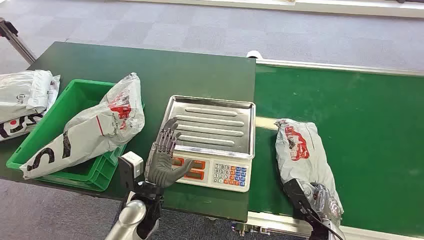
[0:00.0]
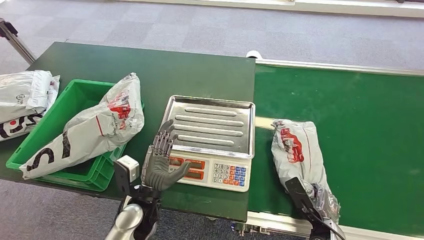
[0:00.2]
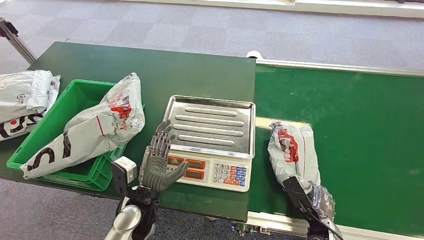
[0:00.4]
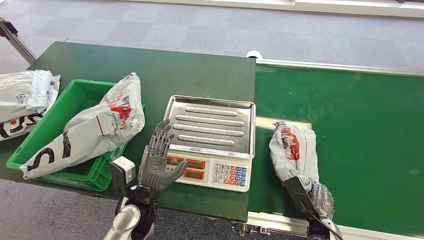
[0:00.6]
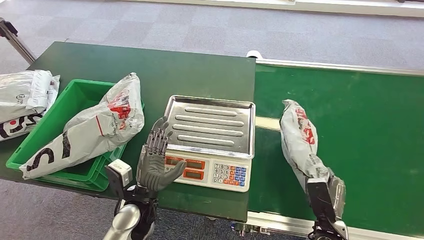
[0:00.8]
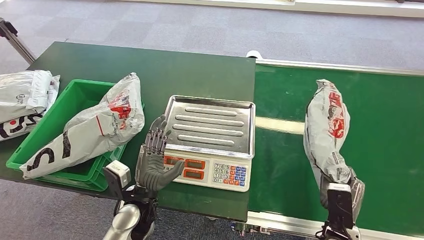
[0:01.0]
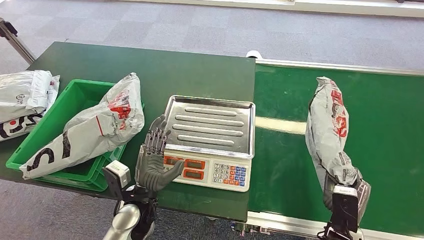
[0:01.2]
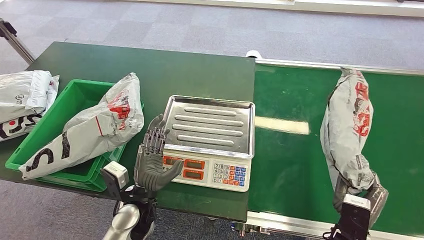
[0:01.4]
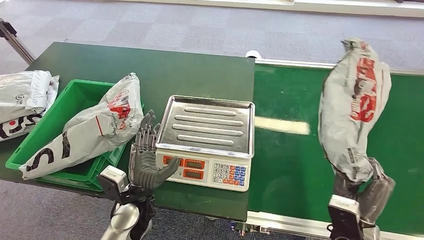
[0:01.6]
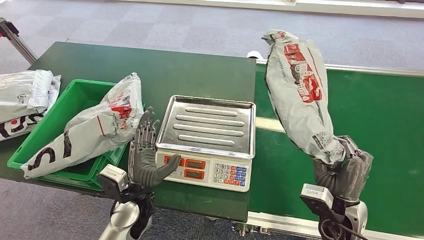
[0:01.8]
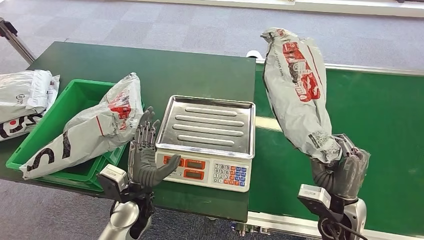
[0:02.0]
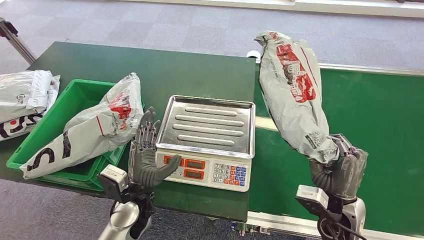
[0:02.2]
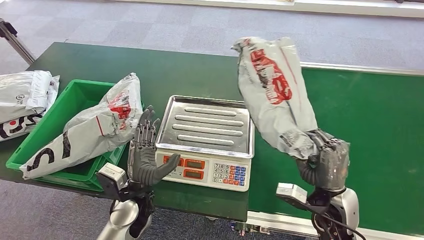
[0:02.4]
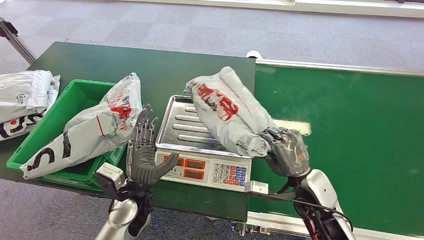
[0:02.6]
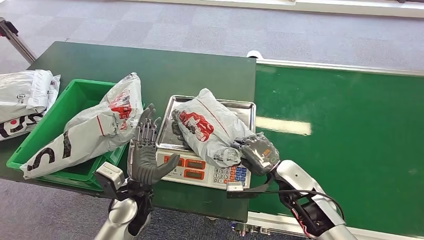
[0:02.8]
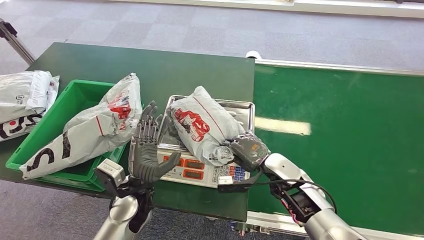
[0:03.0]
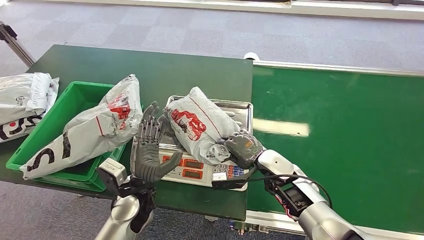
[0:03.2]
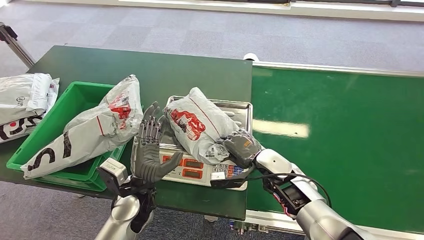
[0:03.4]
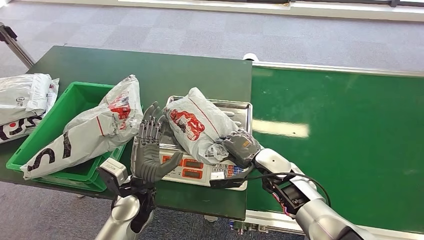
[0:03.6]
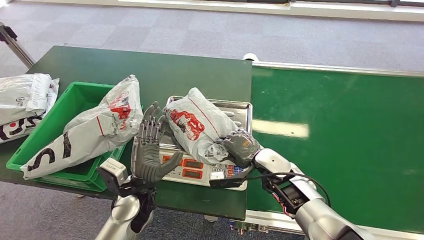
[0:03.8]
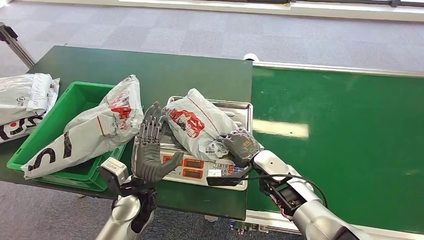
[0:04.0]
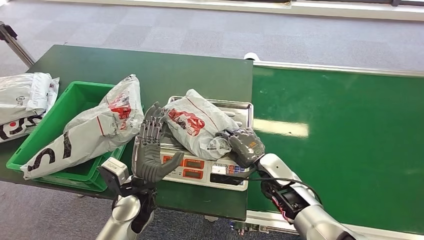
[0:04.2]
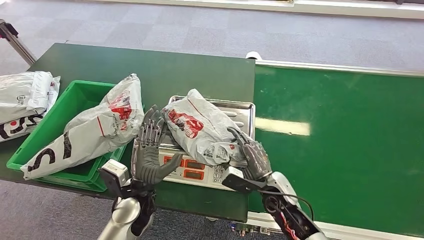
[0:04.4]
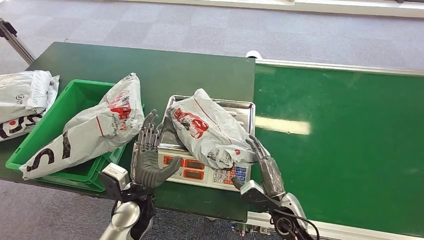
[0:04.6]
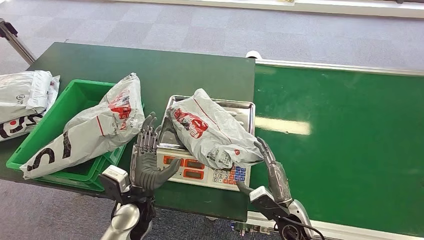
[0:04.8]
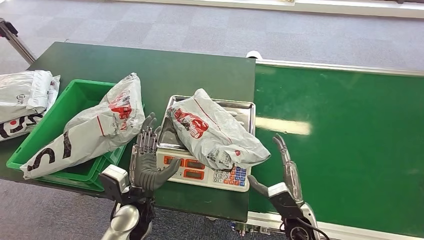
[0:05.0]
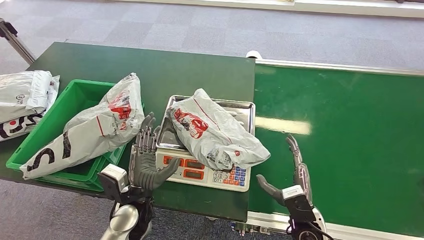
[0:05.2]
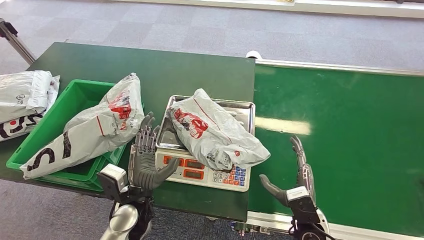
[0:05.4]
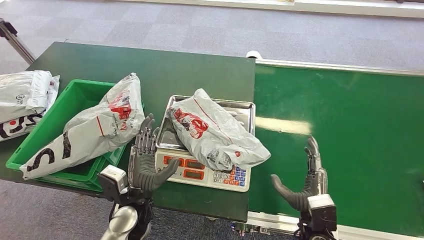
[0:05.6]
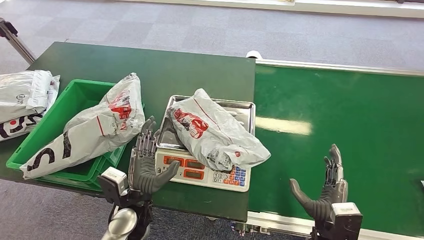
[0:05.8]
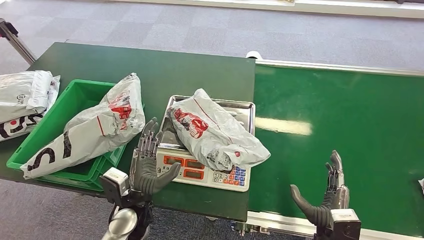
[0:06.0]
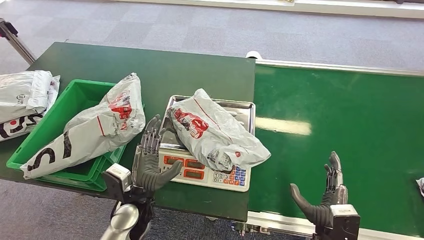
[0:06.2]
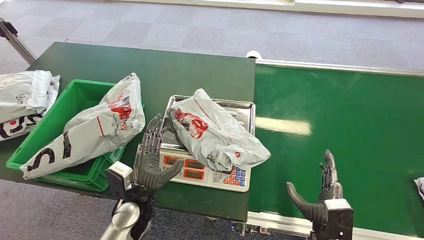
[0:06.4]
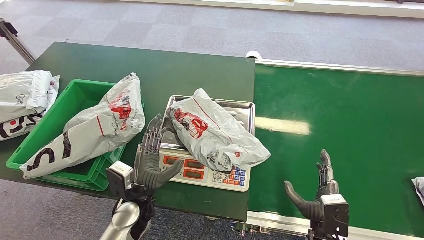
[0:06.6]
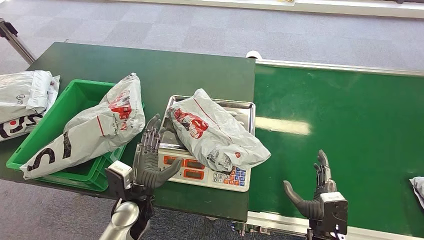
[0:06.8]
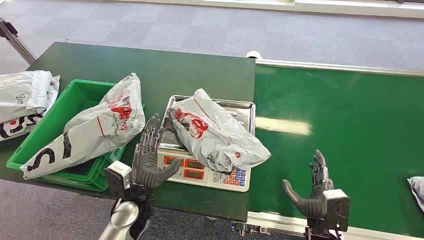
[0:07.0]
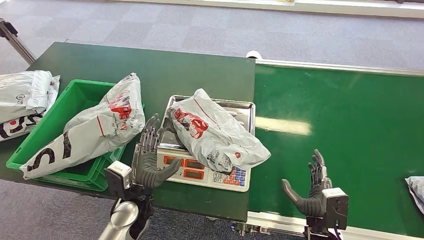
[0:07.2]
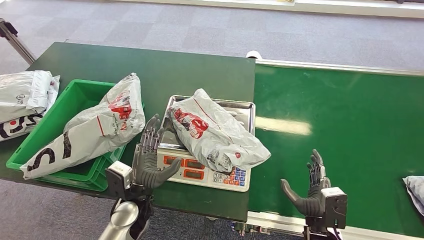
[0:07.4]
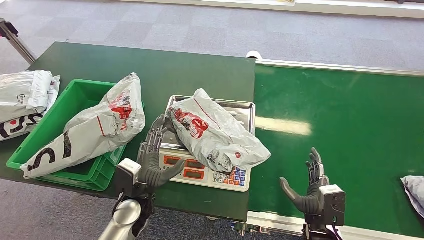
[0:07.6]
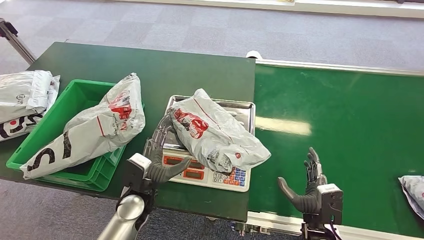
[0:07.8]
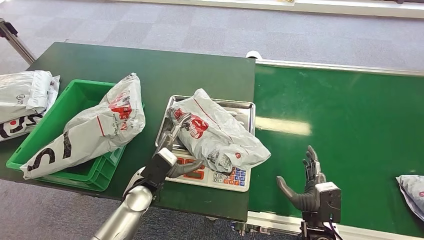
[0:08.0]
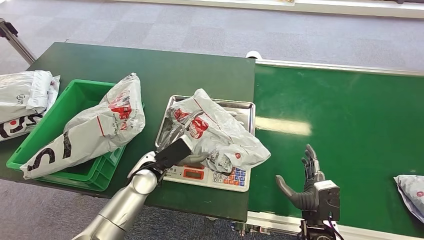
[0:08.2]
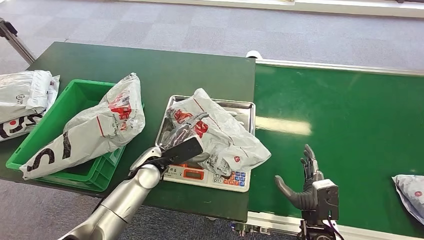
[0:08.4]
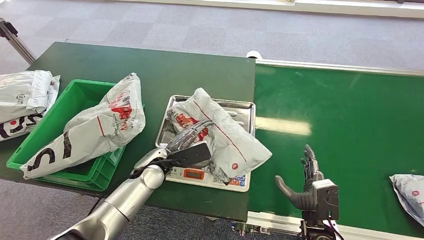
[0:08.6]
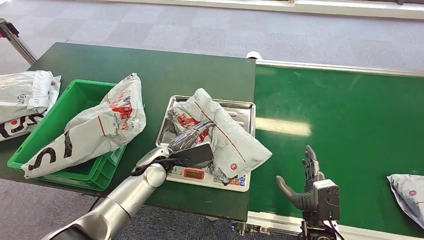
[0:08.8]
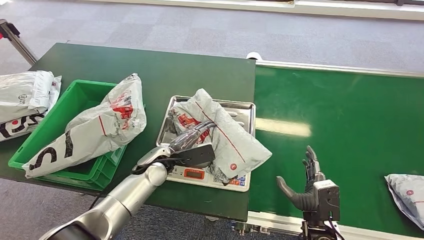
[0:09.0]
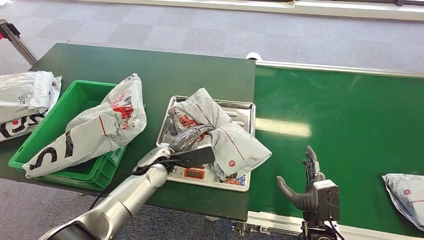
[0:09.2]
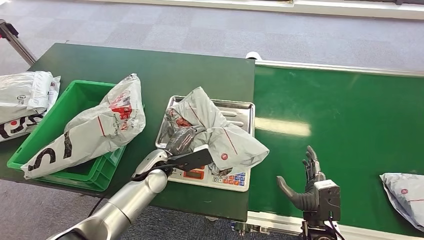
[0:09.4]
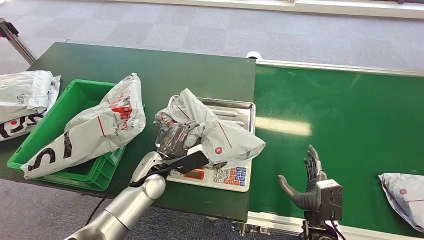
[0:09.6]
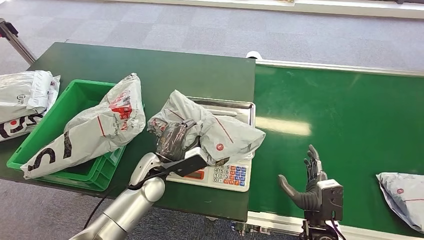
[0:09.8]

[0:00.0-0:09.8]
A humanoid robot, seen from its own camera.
Step, 0:00.0 to 0:02.2: Pick up the package from the conveyor belt.
Step, 0:02.6 to 0:05.2: Place the package onto the inbound machine.
0:05.6 to 0:07.0: The hands make only small movements.
0:07.0 to 0:08.4: The left hand shifts some 10 cm forward.

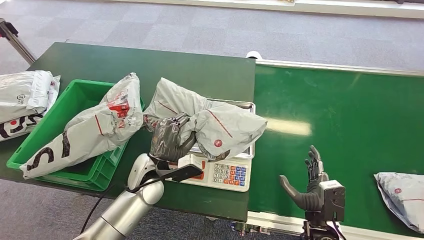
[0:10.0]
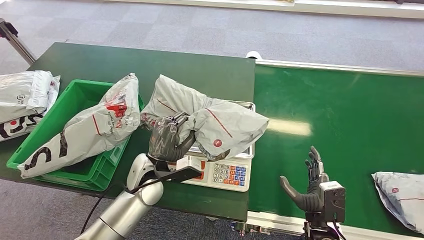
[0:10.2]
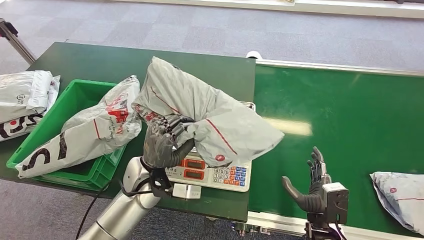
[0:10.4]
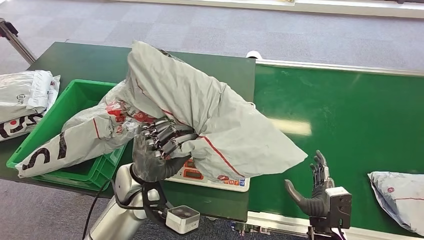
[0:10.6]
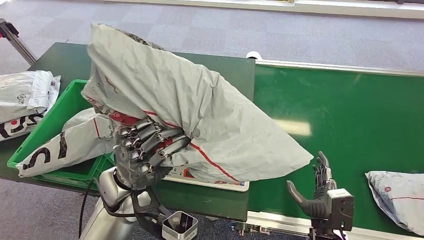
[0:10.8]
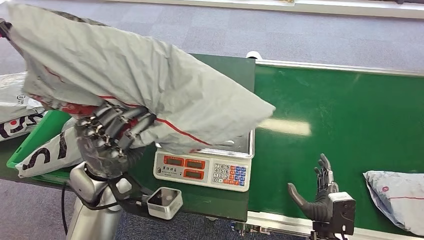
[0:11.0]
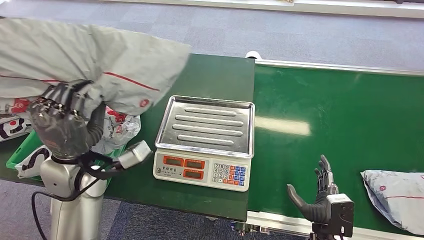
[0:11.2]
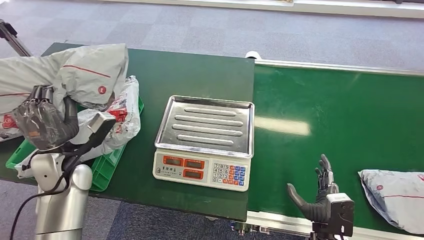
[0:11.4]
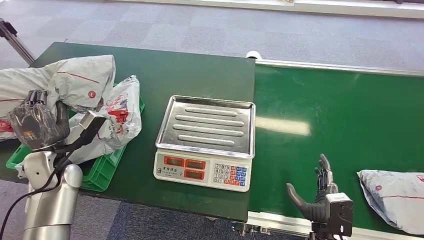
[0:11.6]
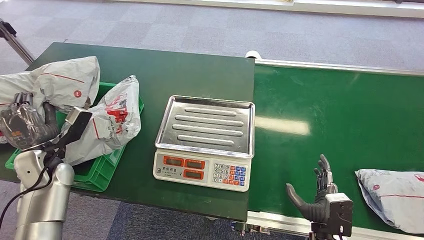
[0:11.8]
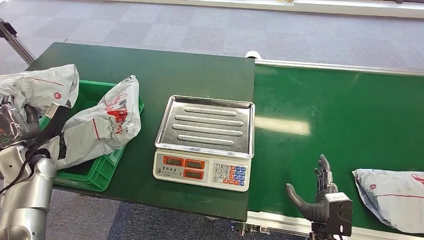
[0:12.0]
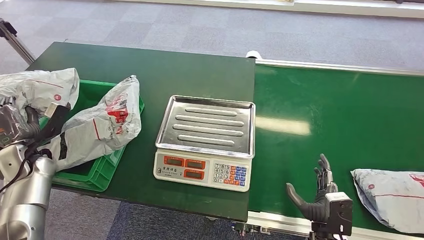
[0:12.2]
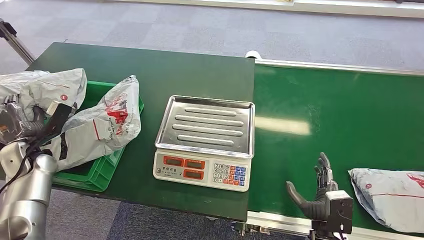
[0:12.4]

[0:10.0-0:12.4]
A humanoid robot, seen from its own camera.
Step, 0:10.0 to 0:10.6: Pick up the package from the inbound machine.
Step, 0:11.2 to 0:12.2: Place the package into the parcel locker.
